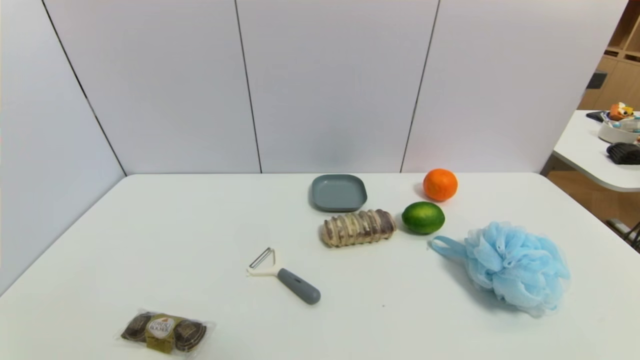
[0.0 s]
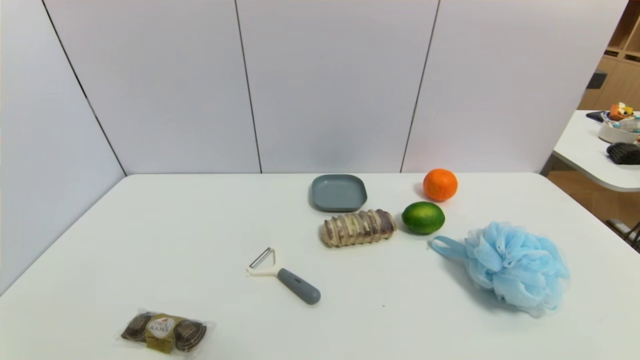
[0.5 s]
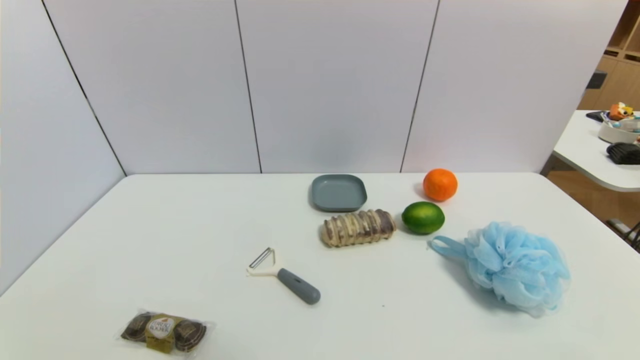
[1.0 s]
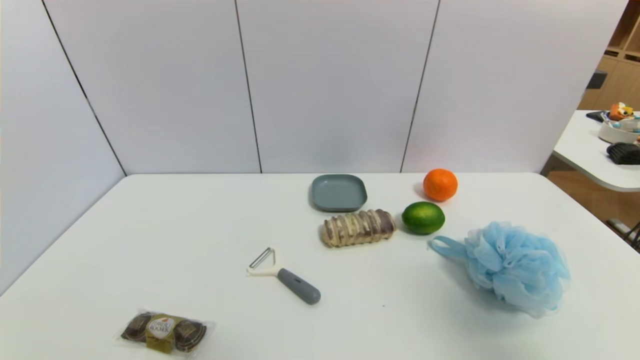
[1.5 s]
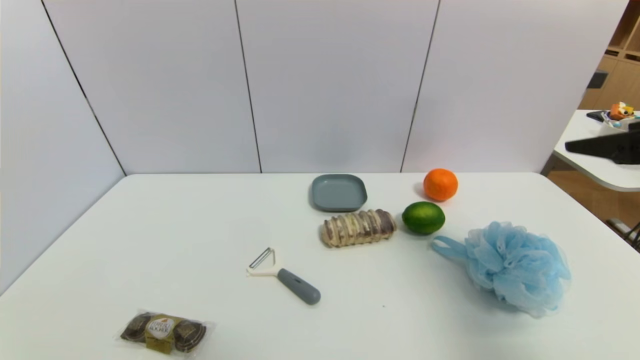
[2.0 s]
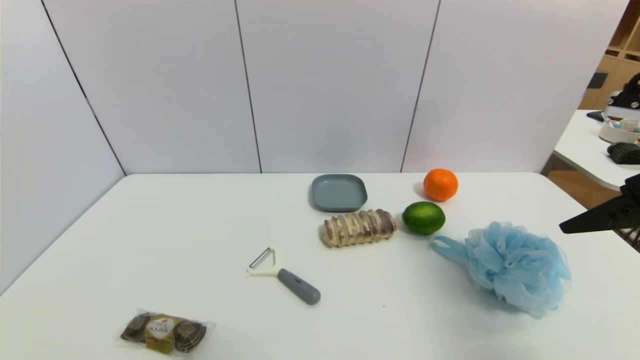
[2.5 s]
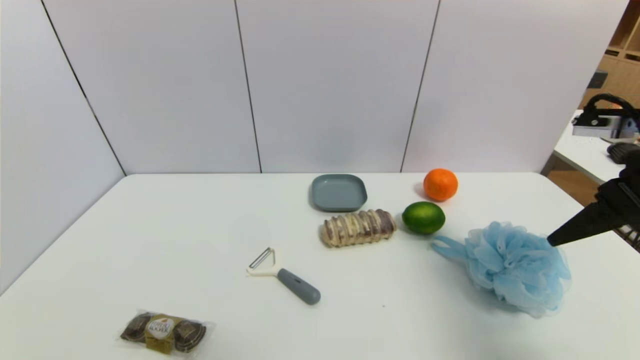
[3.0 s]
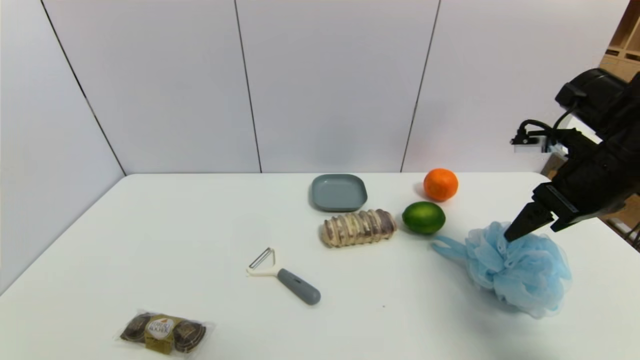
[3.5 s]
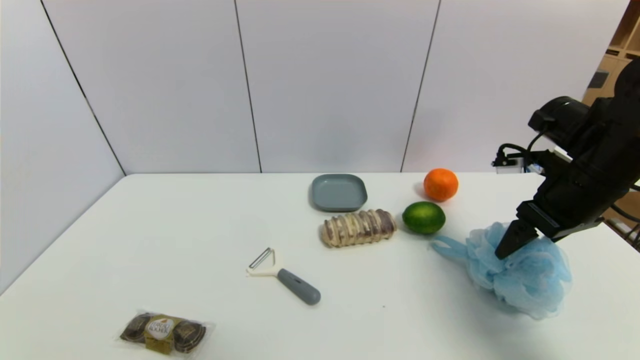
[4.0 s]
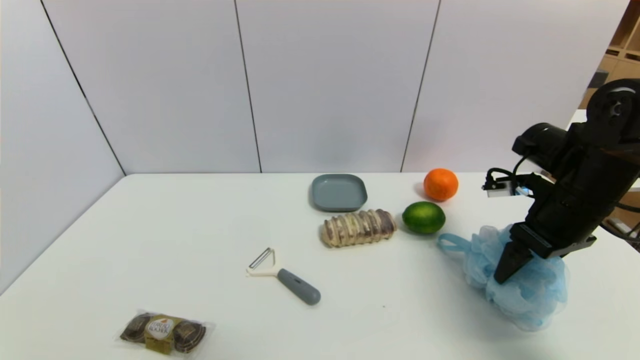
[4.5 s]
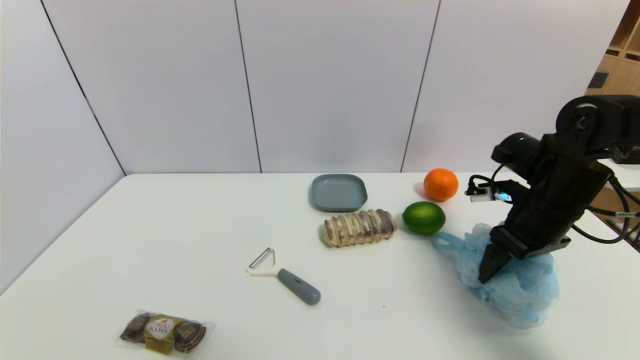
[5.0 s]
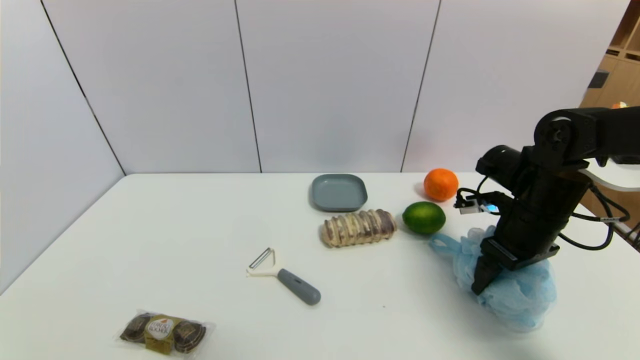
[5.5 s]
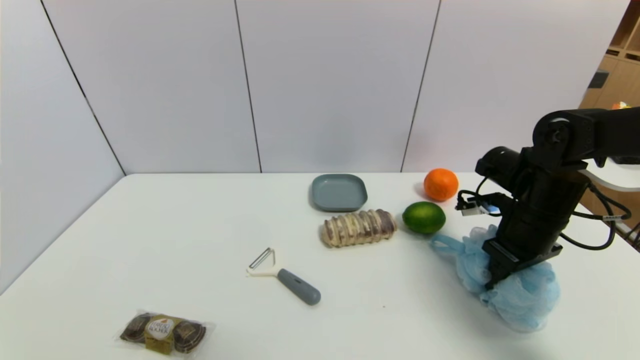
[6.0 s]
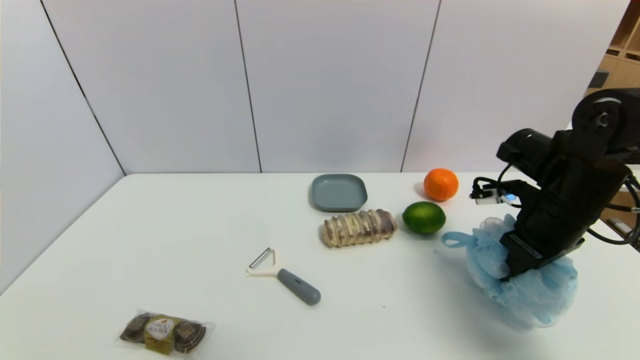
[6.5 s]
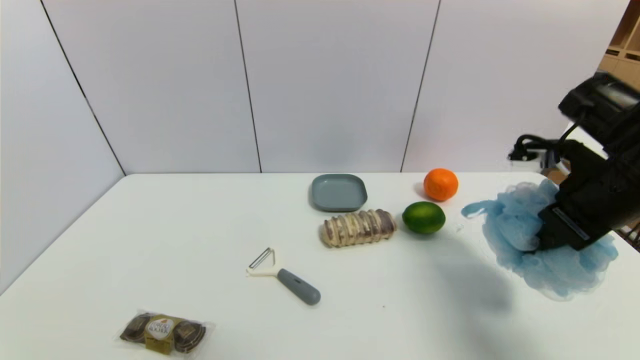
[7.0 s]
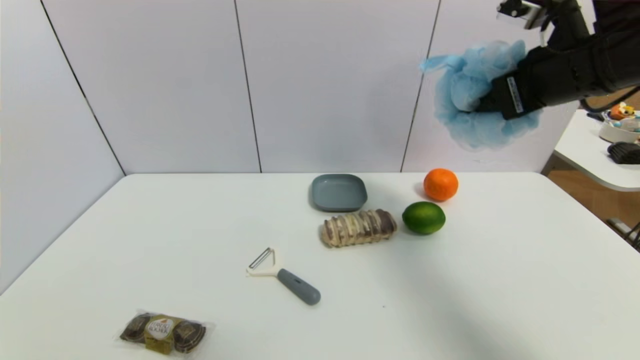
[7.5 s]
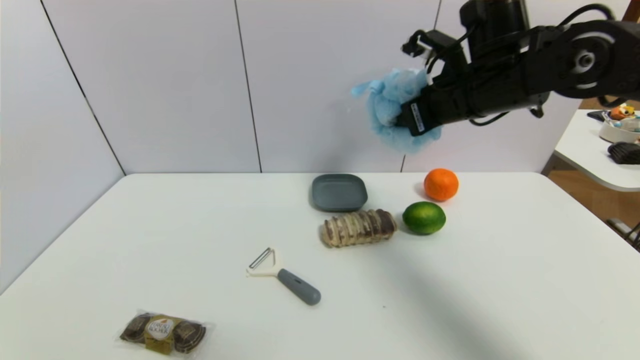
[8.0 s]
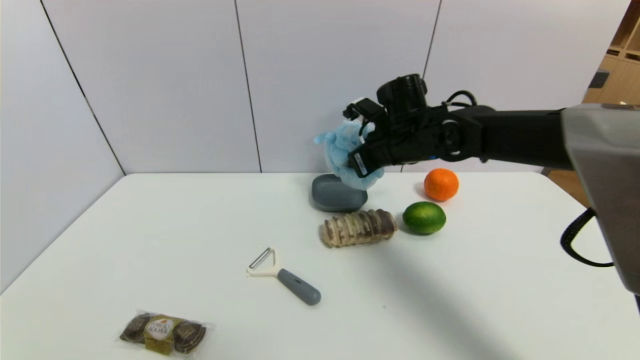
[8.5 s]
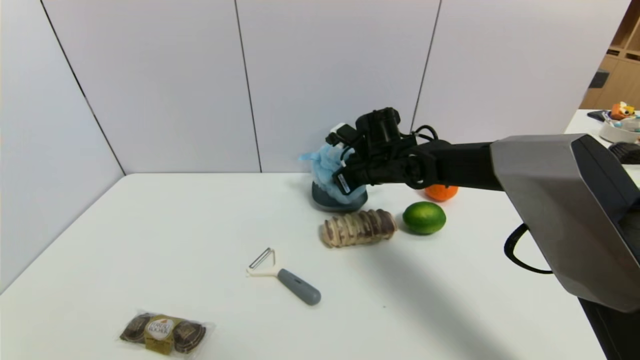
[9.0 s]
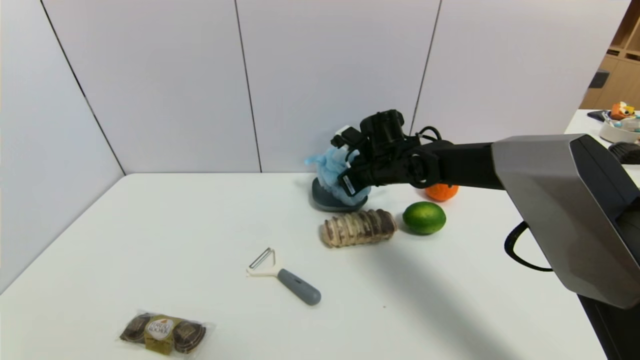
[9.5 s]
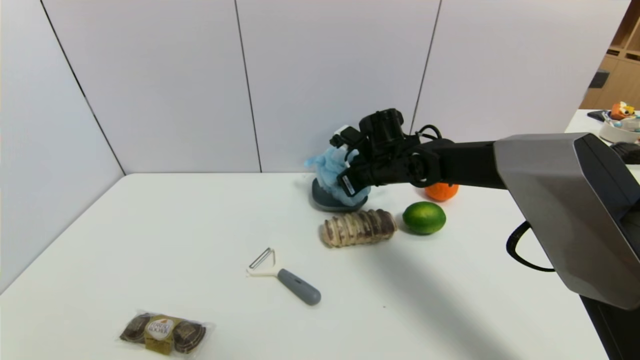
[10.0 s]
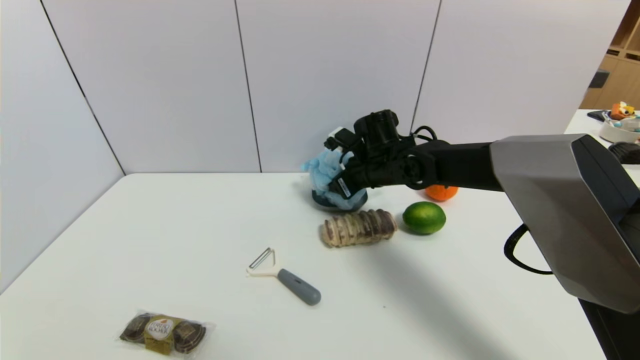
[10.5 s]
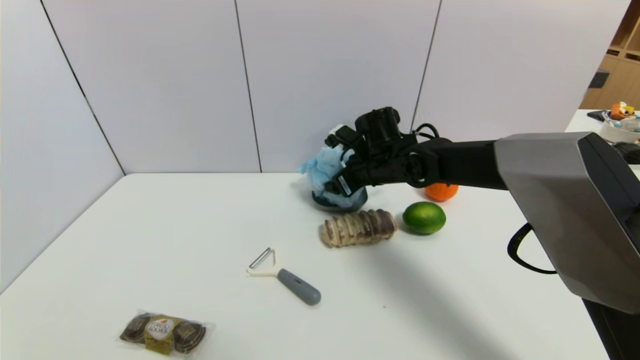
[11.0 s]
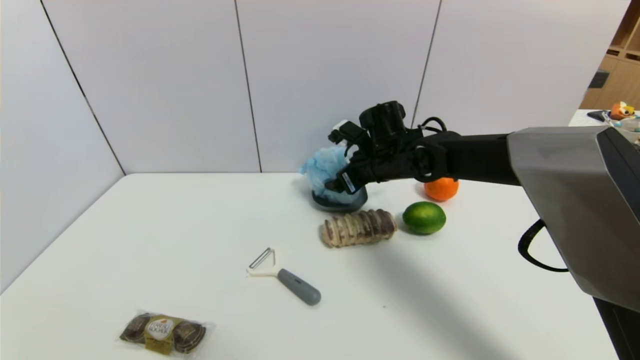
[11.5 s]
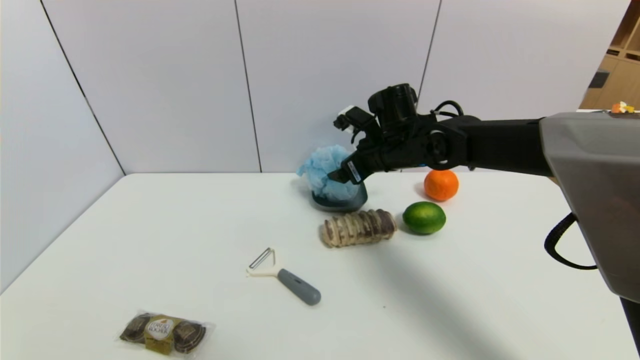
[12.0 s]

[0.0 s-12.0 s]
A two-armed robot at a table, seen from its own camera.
Task of the whole recording: use a gripper to pick the target object and place on the dish.
Step, 0.0 to 6.0 s: Grasp the shower sphere with the right gripper.
0.0 to 2.0 s: The right gripper heads upward and forward, covering approximately 30 cm.
2.0 to 4.0 s: The right gripper moves forward and downward, some 15 cm.
4.0 to 6.0 s: The right gripper goes about 5 cm downward, and closes up.
6.0 to 8.0 s: The right gripper goes about 20 cm upward and to the left.
8.0 to 10.0 s: The right gripper travels downward, forward and to the left by approximately 20 cm.
10.0 to 12.0 s: The right gripper opens.

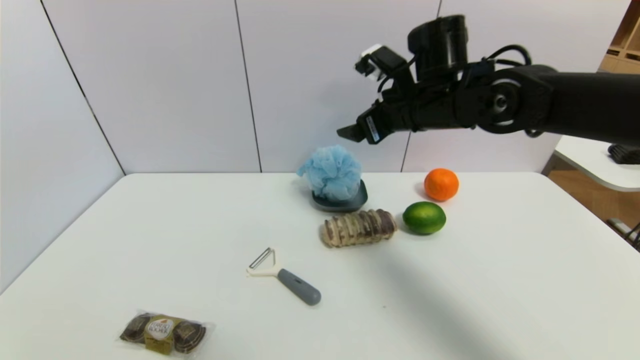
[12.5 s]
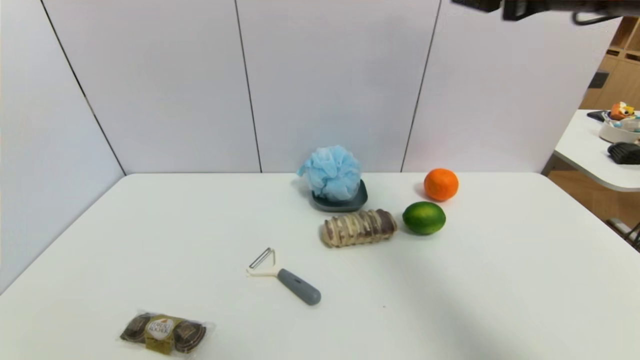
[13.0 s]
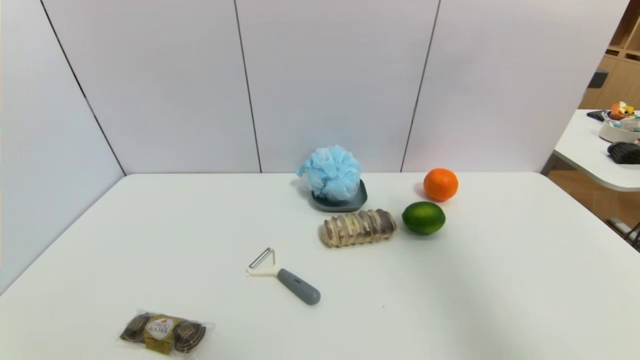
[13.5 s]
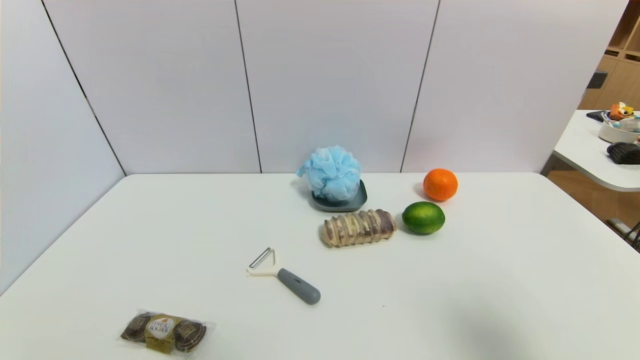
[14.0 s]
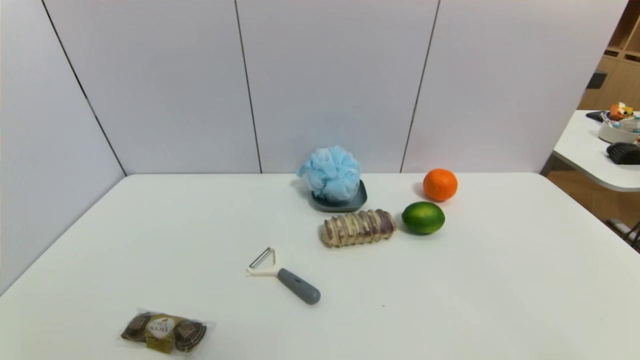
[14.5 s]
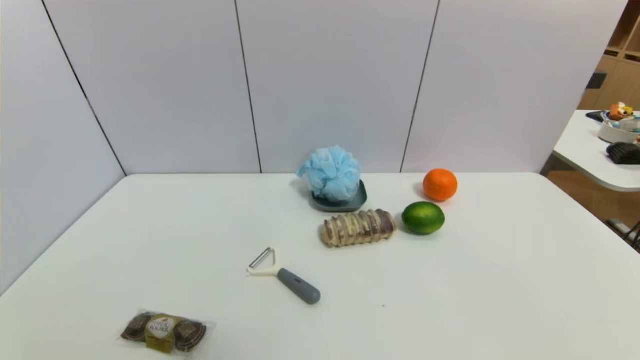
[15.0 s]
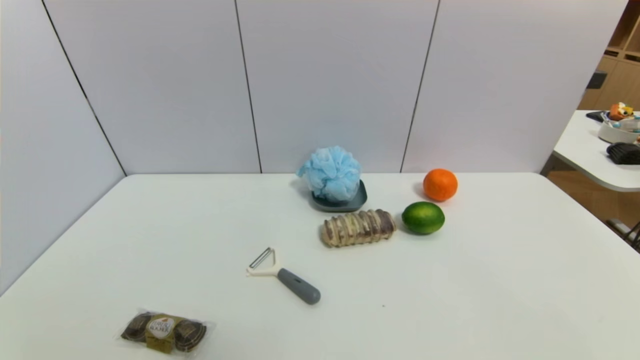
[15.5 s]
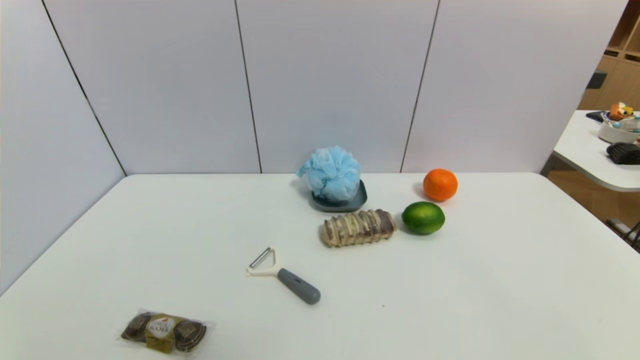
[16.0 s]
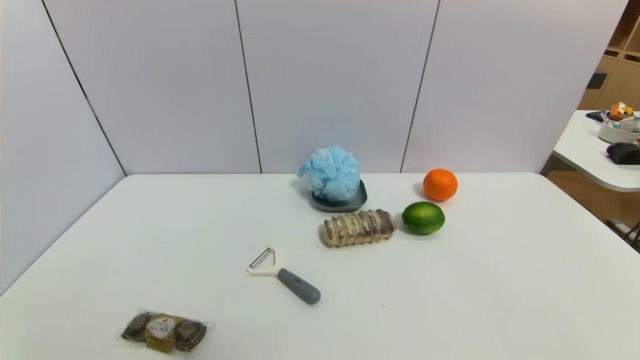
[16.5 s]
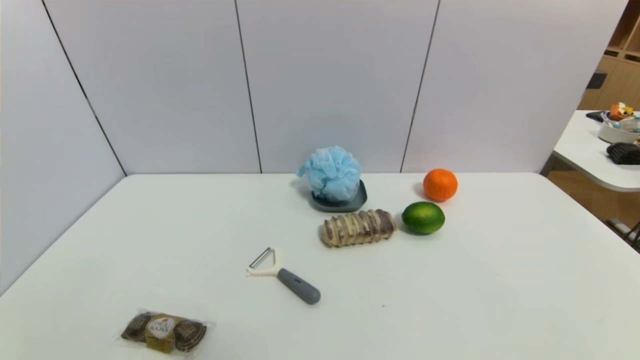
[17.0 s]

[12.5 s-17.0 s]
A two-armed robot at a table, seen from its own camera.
Task of the whole recording: use a gripper to pick the target object and place on the dish.
12.5 to 14.5 s: The right gripper heads backward and to the right, covering some 40 cm.
